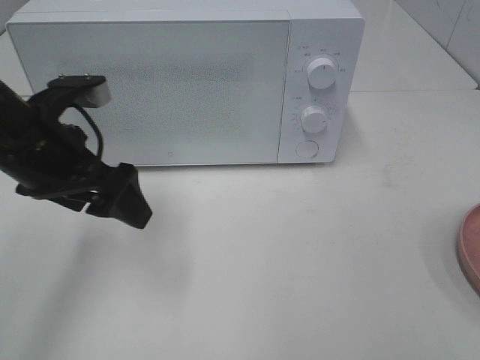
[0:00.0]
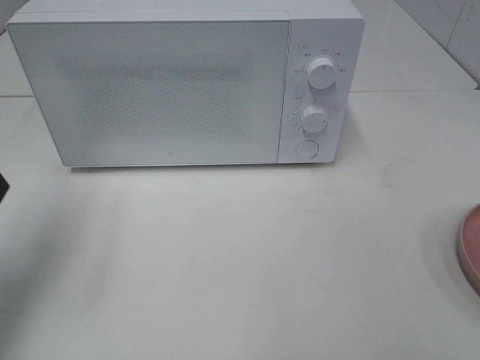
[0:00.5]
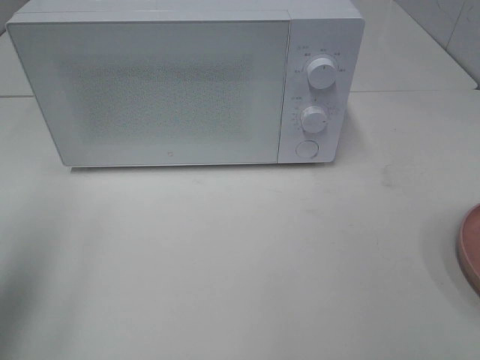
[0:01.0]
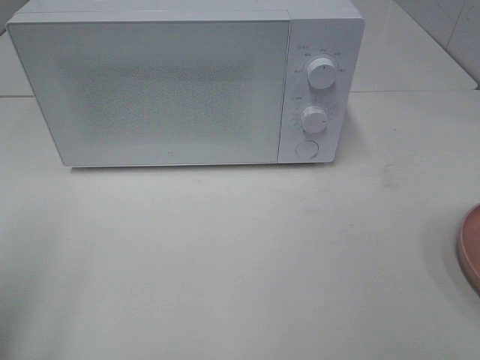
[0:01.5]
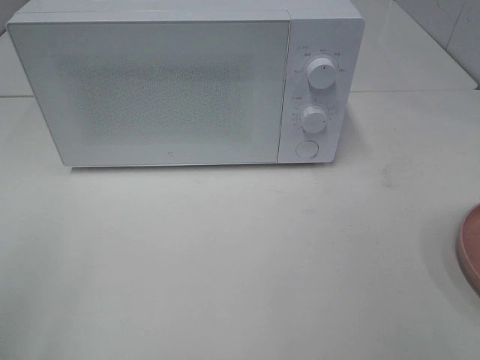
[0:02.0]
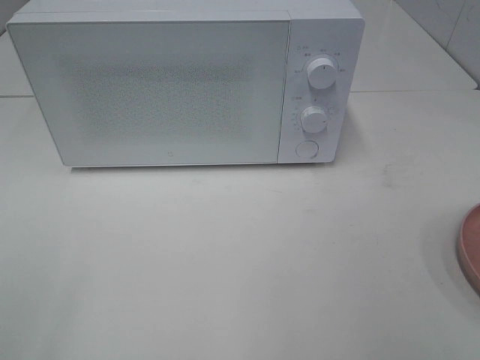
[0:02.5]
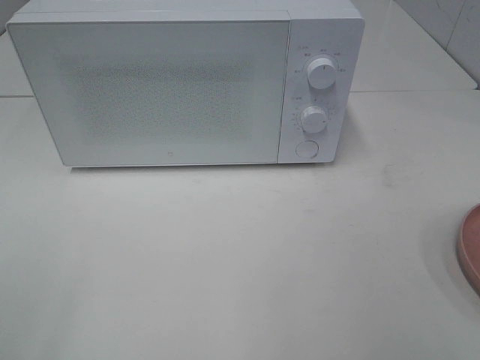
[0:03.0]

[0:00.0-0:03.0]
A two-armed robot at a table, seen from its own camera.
Task of the whole recording: Heat the burger.
0:00.0 to 0:01.5: The left gripper heads backward and to the left, covering about 20 cm.

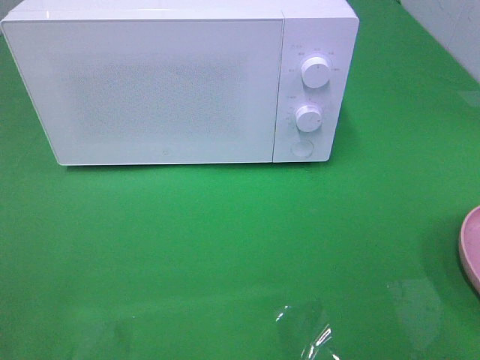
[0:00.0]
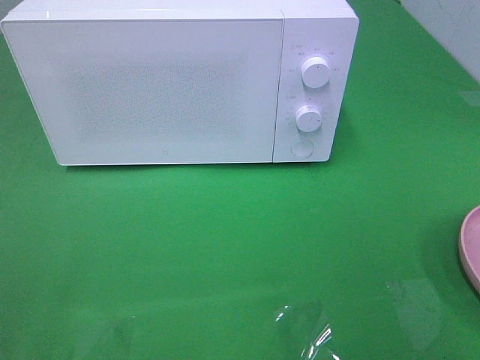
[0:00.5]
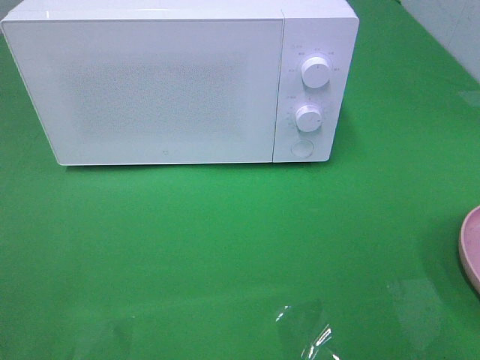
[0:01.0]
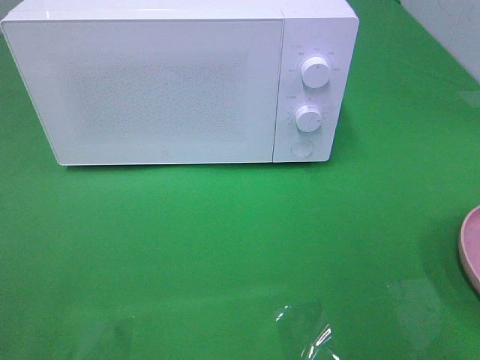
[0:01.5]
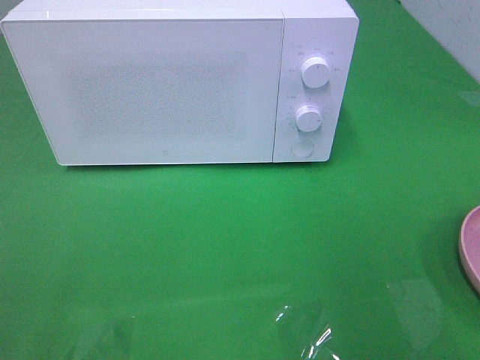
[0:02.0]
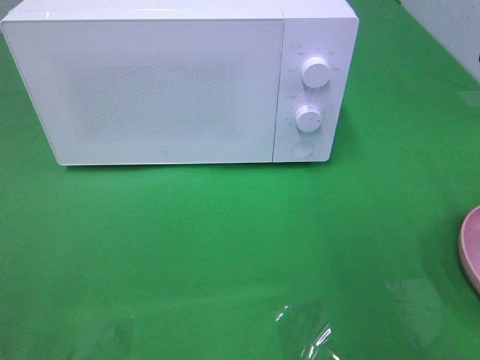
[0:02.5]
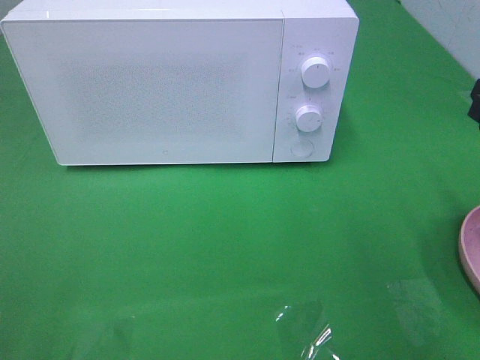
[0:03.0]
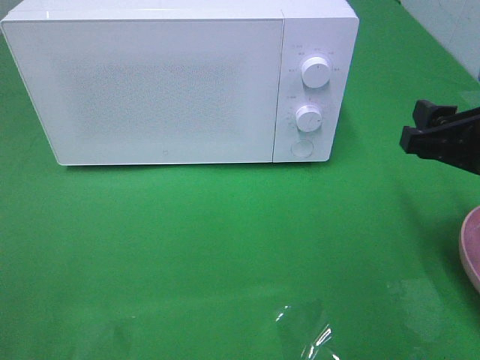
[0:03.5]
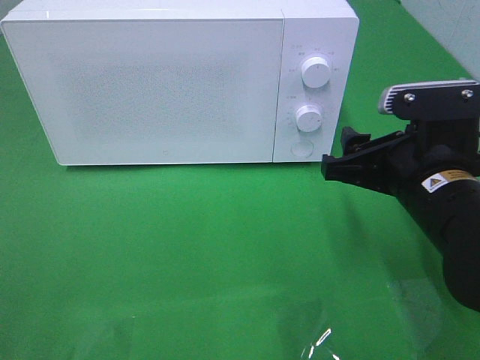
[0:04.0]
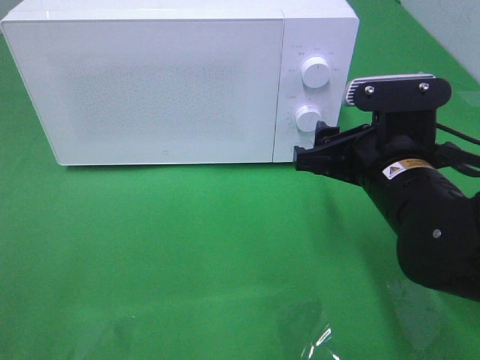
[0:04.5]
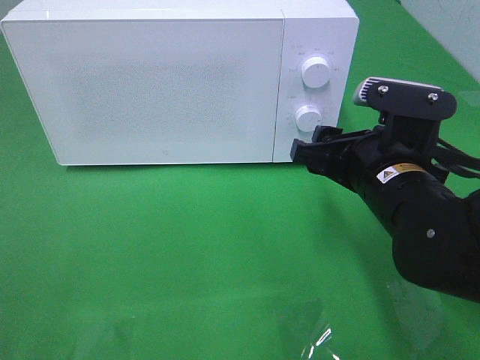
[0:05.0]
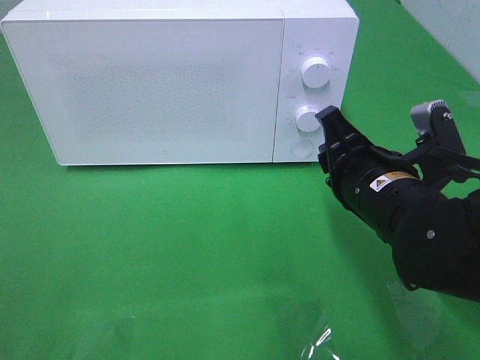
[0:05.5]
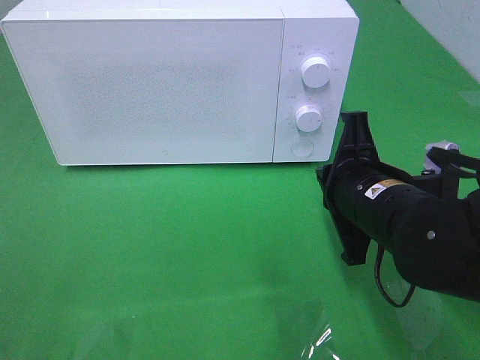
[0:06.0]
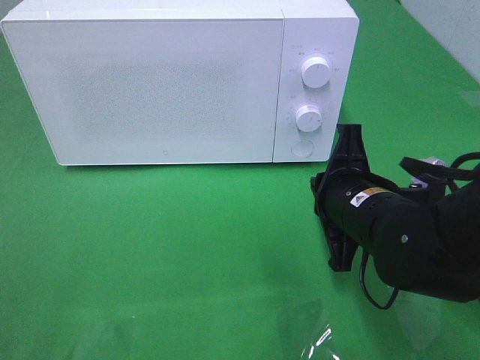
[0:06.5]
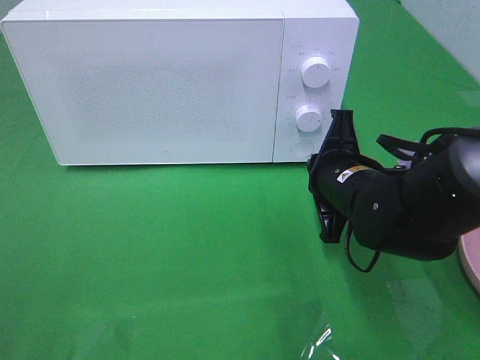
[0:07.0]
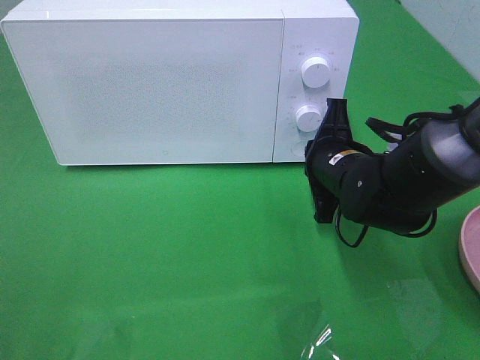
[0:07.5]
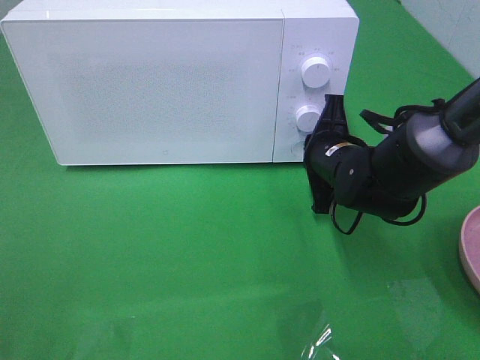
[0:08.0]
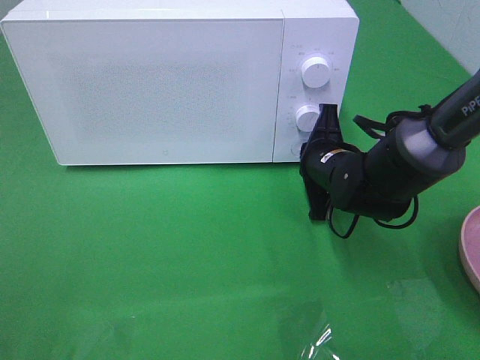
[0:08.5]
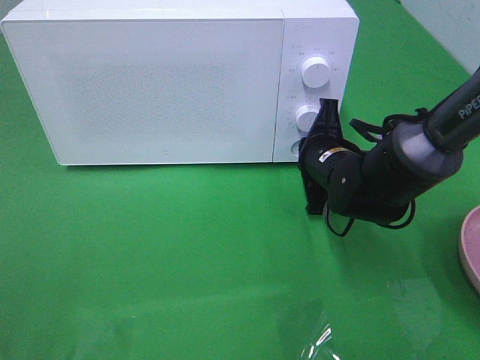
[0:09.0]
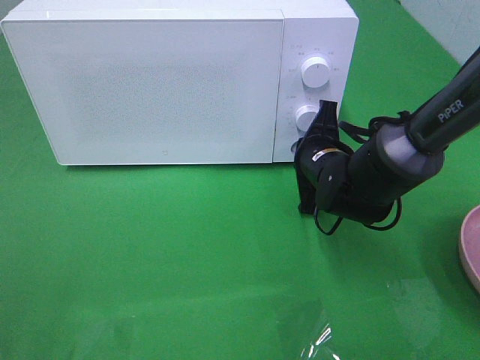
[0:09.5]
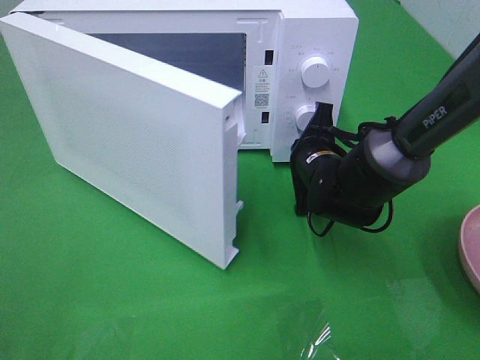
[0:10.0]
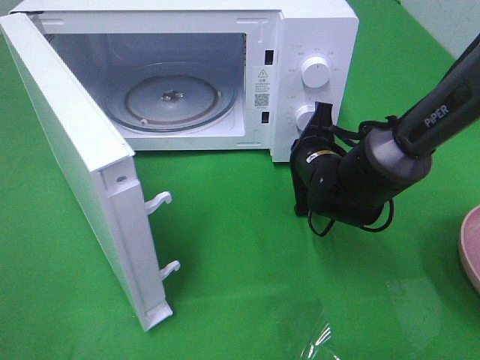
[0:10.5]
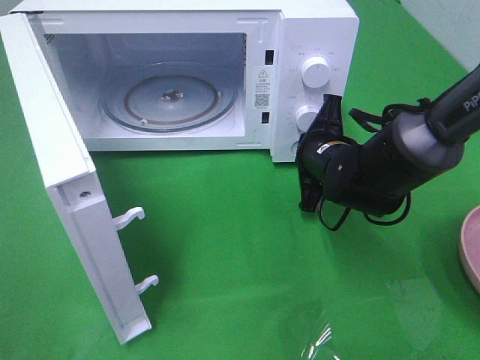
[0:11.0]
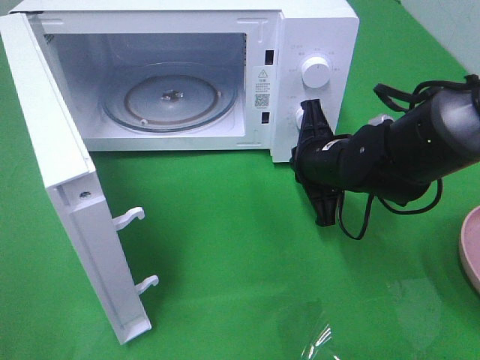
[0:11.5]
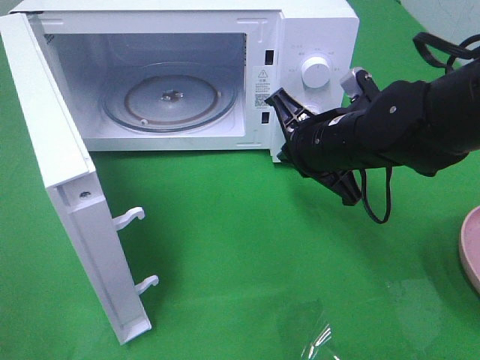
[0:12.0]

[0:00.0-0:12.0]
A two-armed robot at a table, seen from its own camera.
Task of the whole recording: Heat the burger.
Step, 0:00.0 to 0:11.0: Right hand: press the switch.
0:02.0 to 0:04.0: The right gripper heads downward, to the left and forward, covering roughly 20 cm.
0:04.0 to 0:06.0: The right gripper closes.
0:06.0 to 0:08.0: The right gripper is displaced forward by roughly 10 cm.
0:10.0 to 0:12.0: The right gripper moves upward and backward, roughly 10 cm.

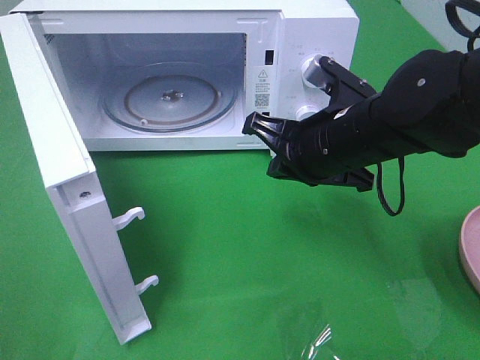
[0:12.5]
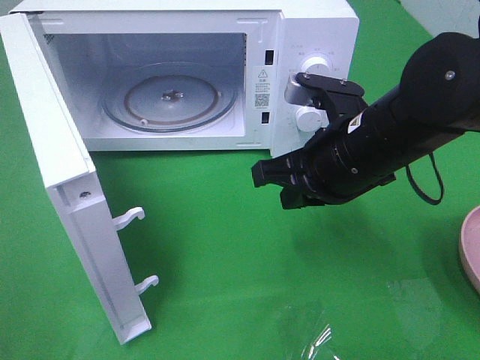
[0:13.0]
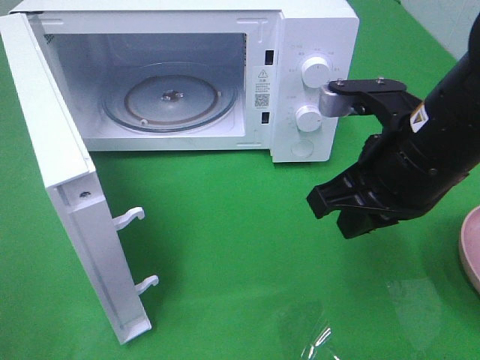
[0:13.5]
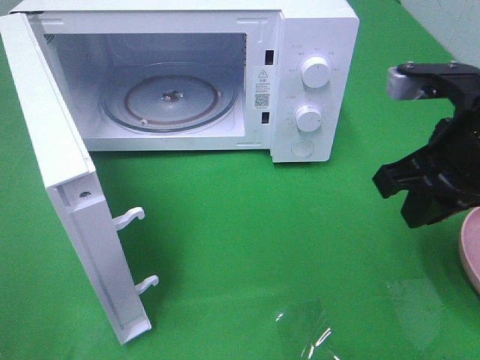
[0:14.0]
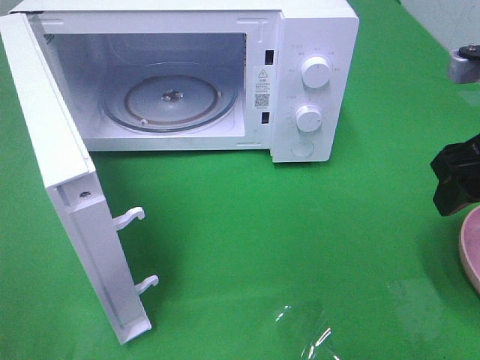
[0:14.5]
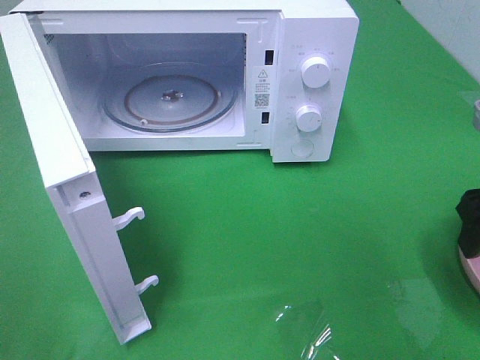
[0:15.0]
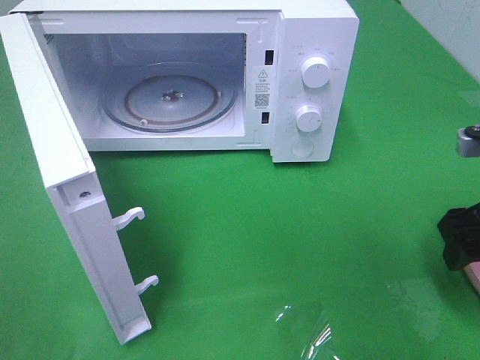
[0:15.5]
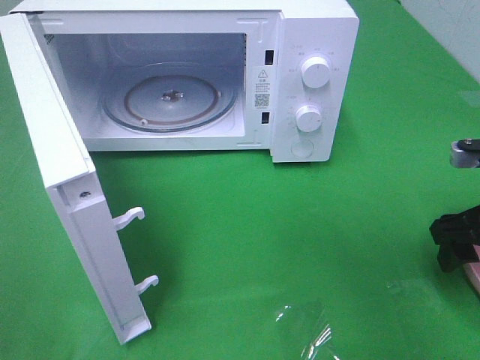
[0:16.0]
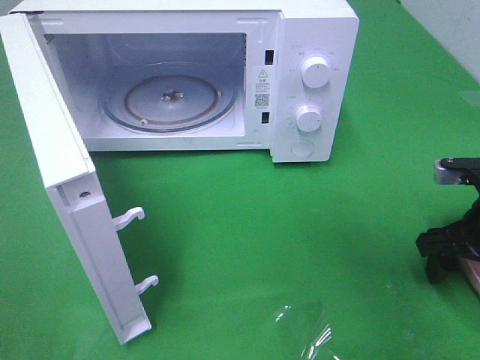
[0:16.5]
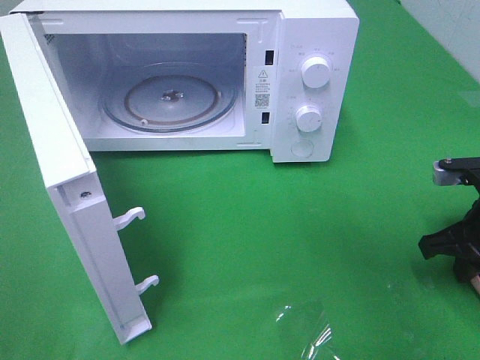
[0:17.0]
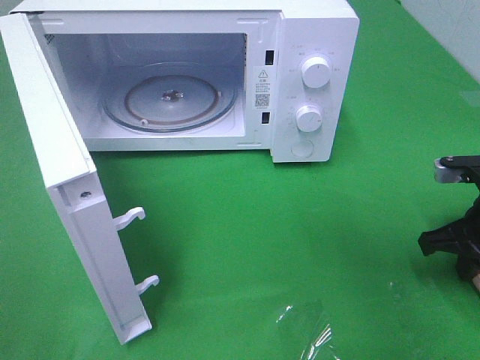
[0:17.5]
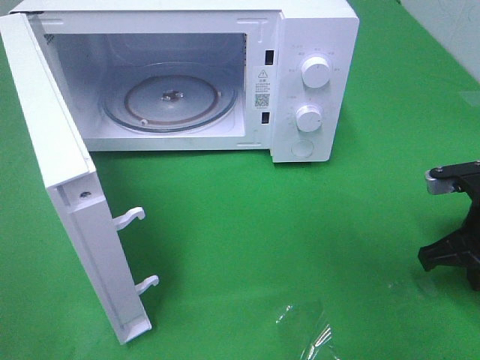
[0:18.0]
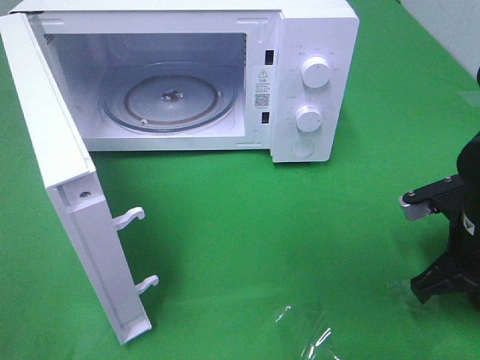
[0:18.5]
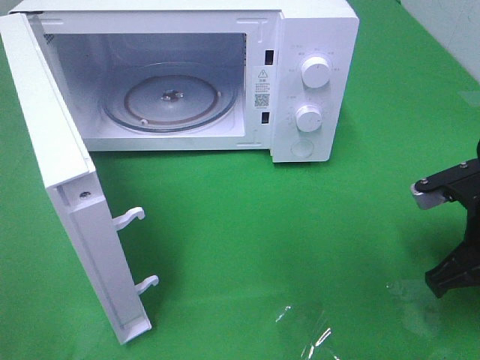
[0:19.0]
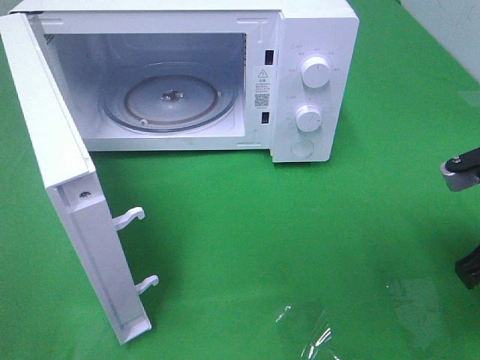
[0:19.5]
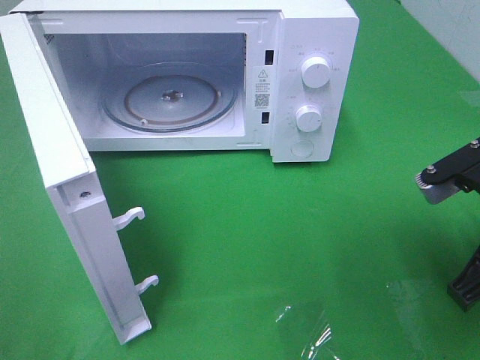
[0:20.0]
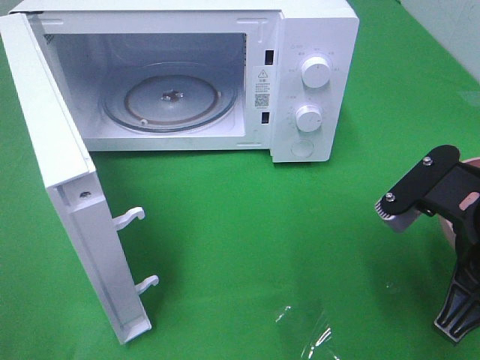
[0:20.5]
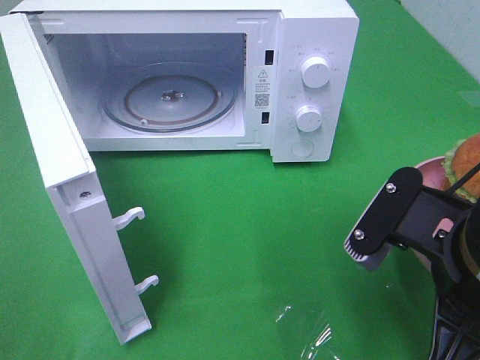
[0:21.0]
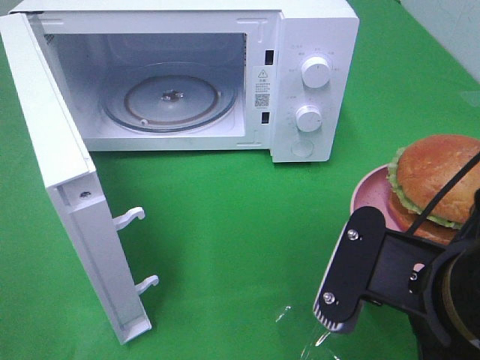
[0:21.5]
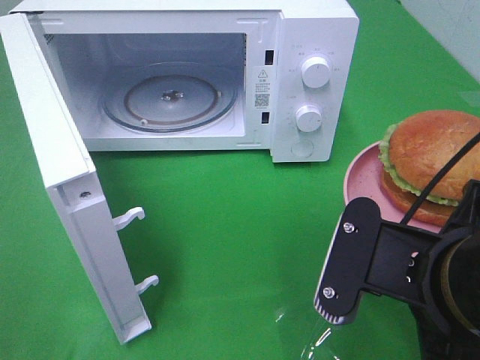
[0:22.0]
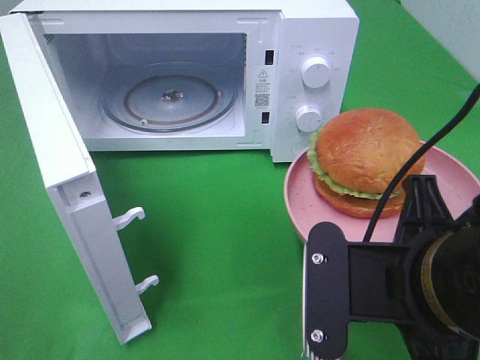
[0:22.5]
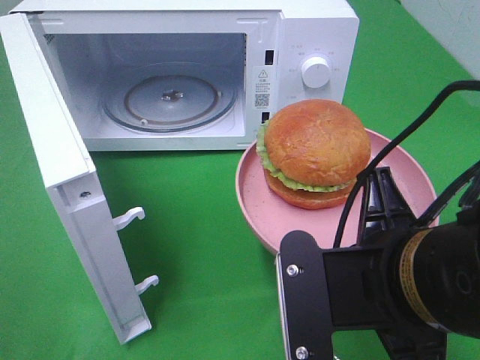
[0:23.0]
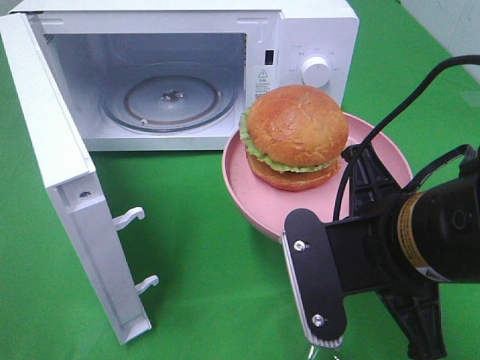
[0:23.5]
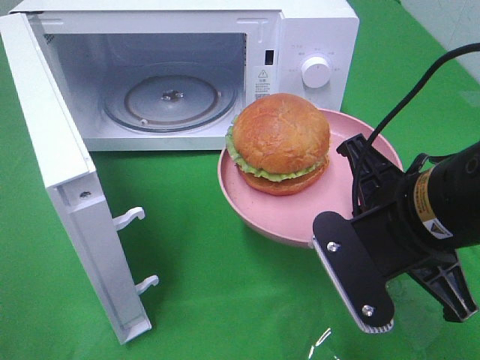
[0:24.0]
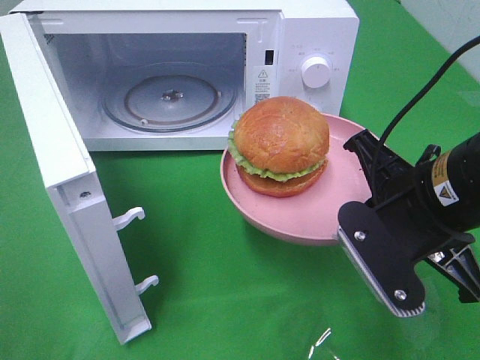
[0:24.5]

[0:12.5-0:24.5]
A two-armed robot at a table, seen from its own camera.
Task of the whole recording: Heat the burger.
Step, 0:12.5 to 0:17.5: Right hand: grab the plate with the hamburger.
0:12.5 to 0:14.5: The right gripper travels to the right, upward and backward by approximately 15 cm, and opens.
0:14.5 to 0:16.5: The right gripper goes some 15 cm downward.
0:16.5 to 0:18.5: The right gripper closes up.
0:18.5 to 0:20.5: The right gripper moves upward, backward and to the left, roughly 10 cm.
0:20.5 to 0:22.5: The right gripper travels to the left by roughly 5 cm.
0:22.5 to 0:24.5: The right gripper travels forward by about 10 cm.
